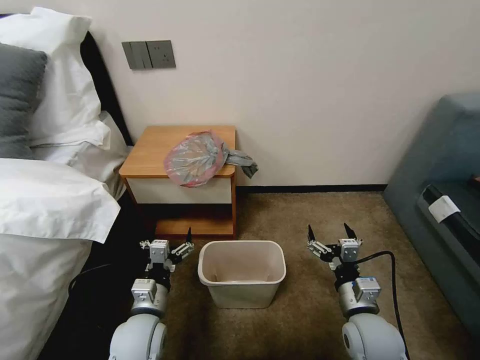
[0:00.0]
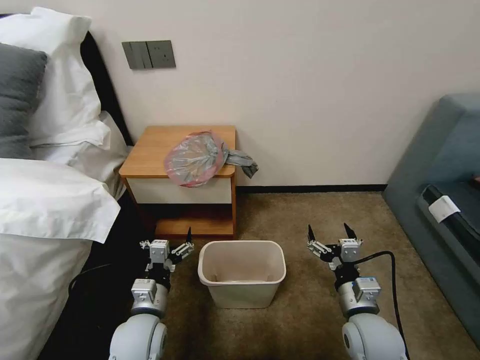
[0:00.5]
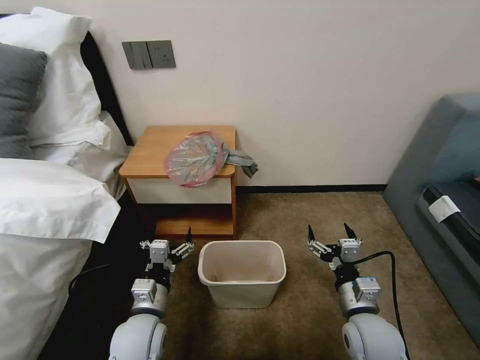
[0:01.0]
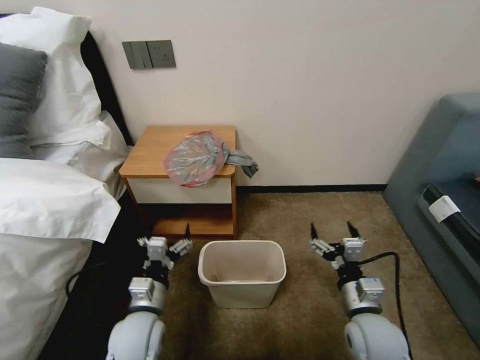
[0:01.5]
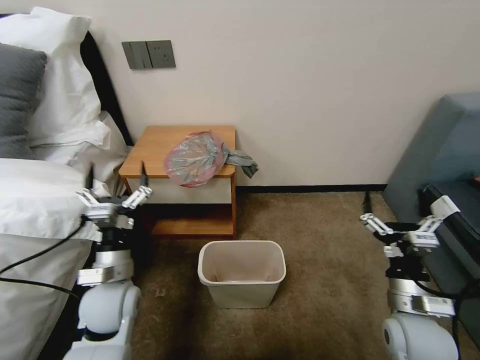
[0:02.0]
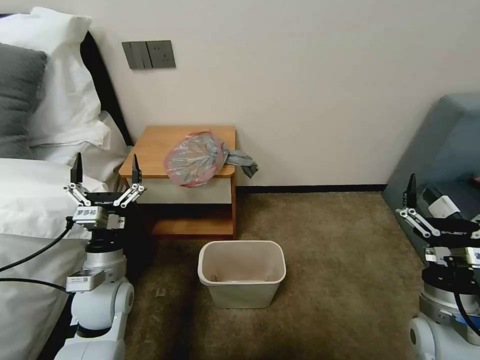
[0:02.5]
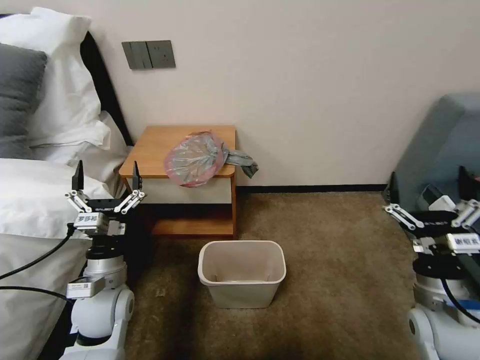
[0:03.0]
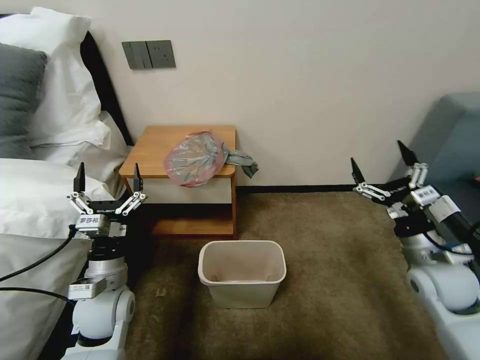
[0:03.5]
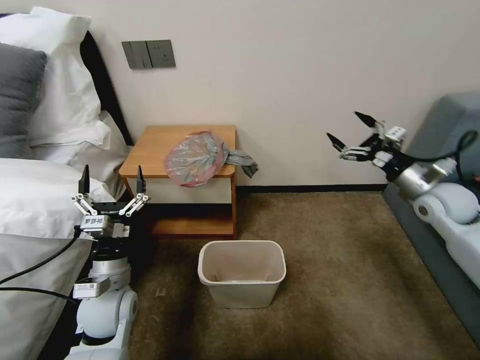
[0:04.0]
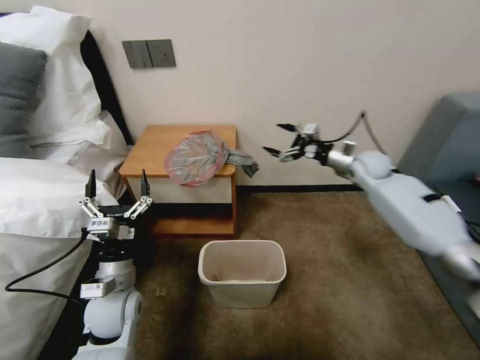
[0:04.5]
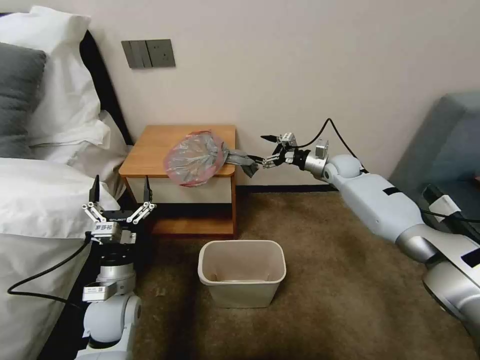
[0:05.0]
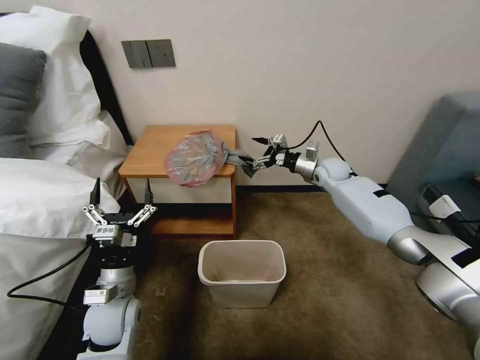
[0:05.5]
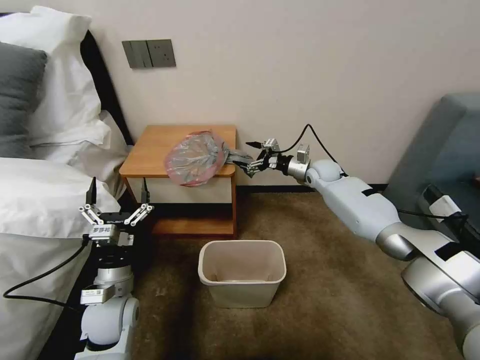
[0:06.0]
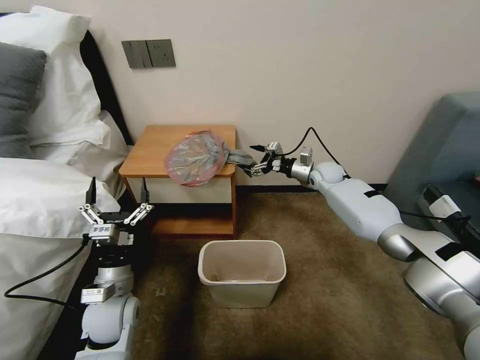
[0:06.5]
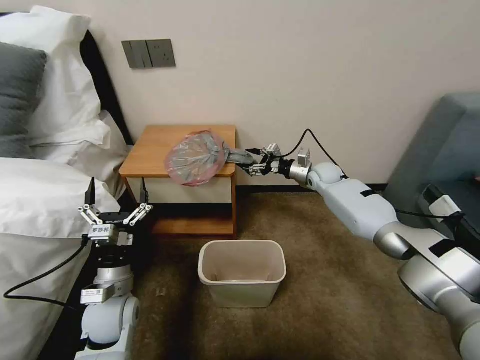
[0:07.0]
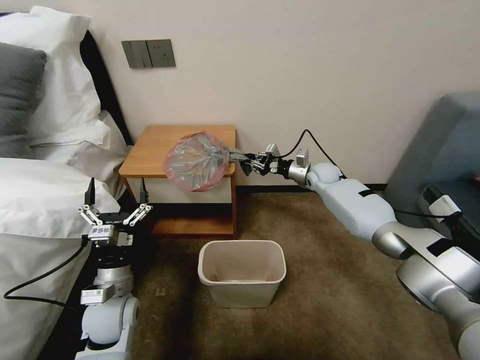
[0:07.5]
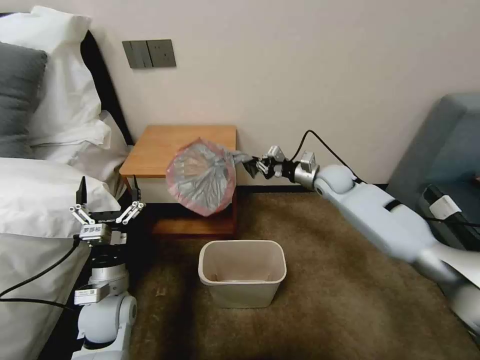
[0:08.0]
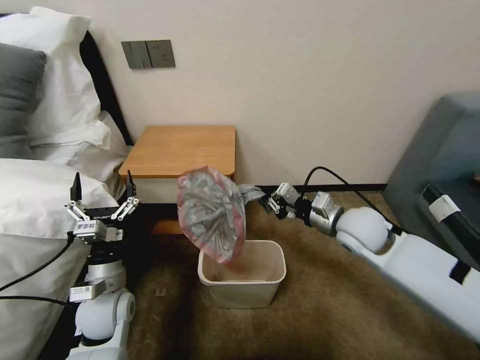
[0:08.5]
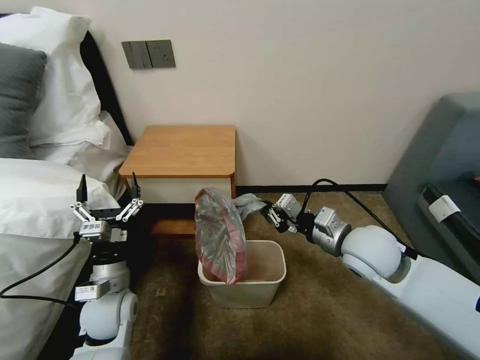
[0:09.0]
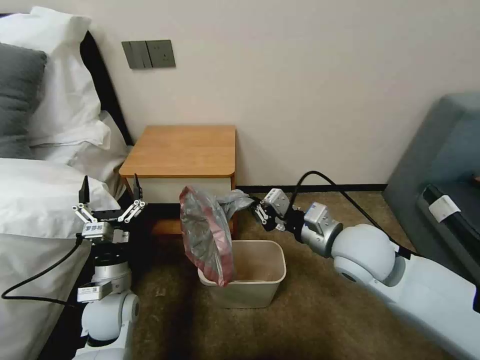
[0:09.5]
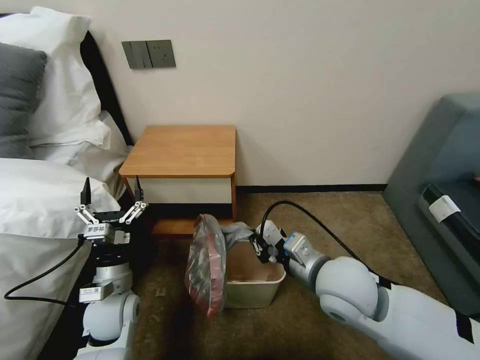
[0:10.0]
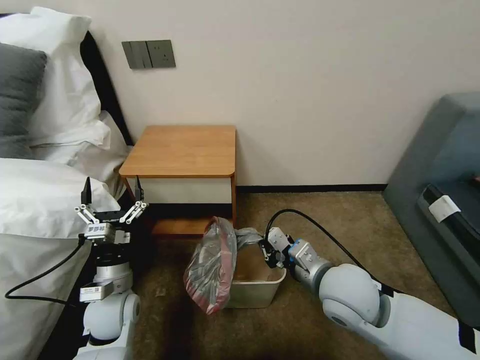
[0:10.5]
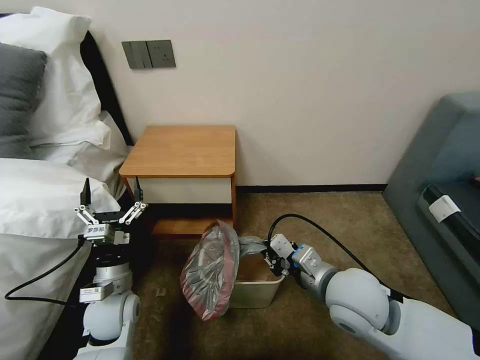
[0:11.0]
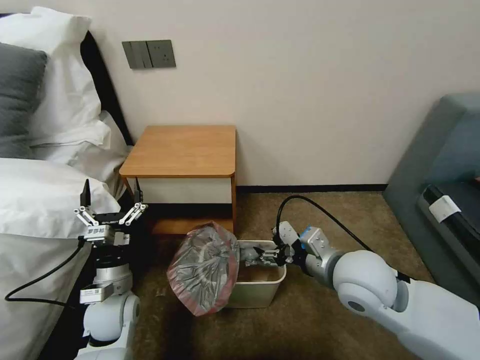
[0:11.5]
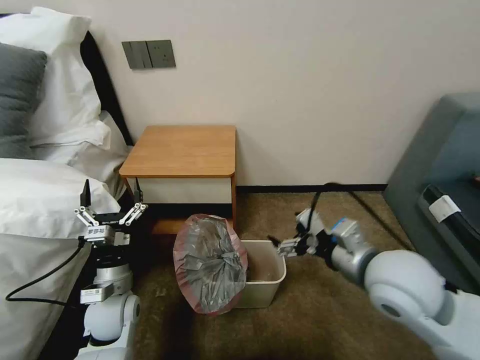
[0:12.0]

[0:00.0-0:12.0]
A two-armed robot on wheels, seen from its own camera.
Task of the whole recording: Pick up the garbage bag from the table and place it over the trash can.
0:02.0 to 0:04.0: The right gripper heads forward, to the right and upward, covering some 30 cm.
0:04.0 to 0:06.0: The right gripper travels forward, to the left and downward by approximately 30 cm.
0:06.0 to 0:08.0: The right gripper heads backward, covering some 5 cm, and closes its fingers.
0:08.0 to 0:10.0: The right gripper moves backward, some 30 cm.
0:10.0 to 0:12.0: The right gripper travels to the right and upward by about 10 cm, and opens.

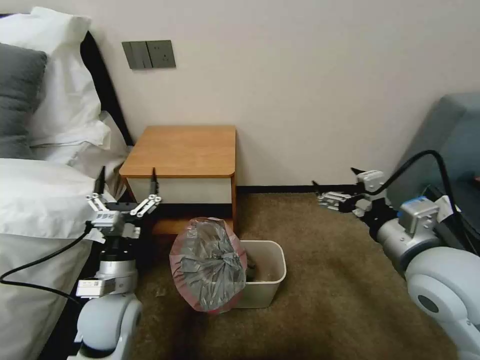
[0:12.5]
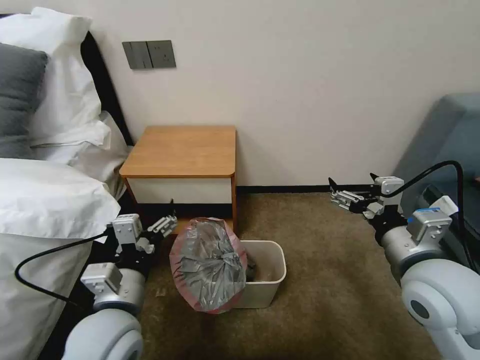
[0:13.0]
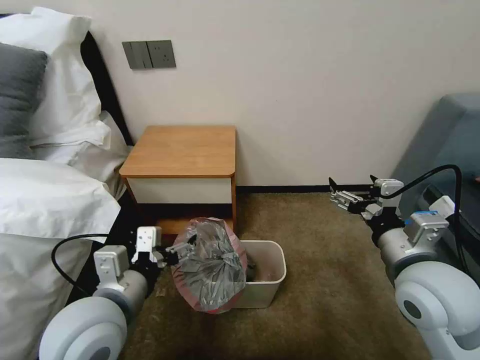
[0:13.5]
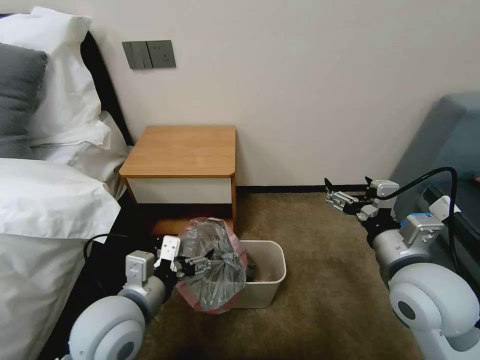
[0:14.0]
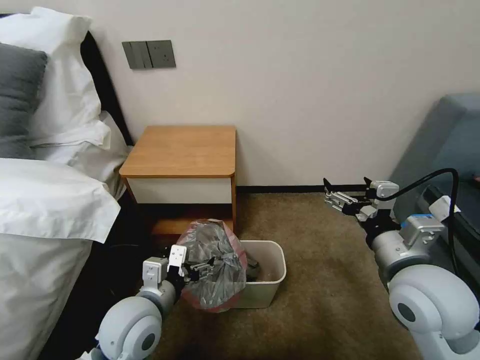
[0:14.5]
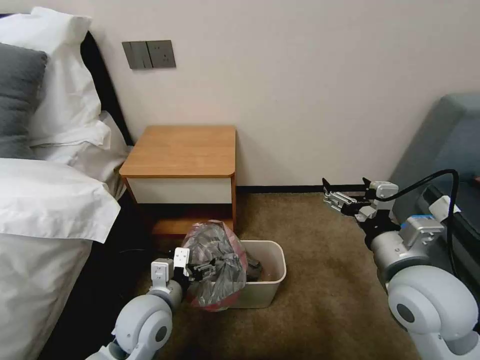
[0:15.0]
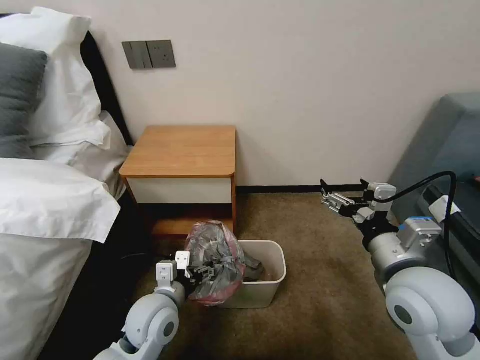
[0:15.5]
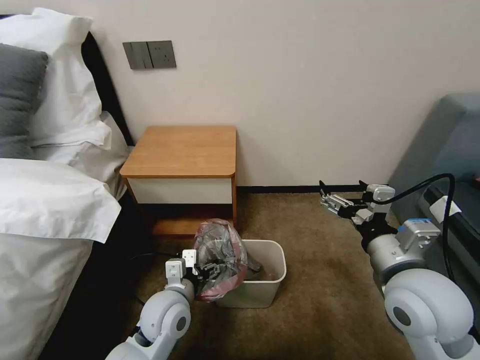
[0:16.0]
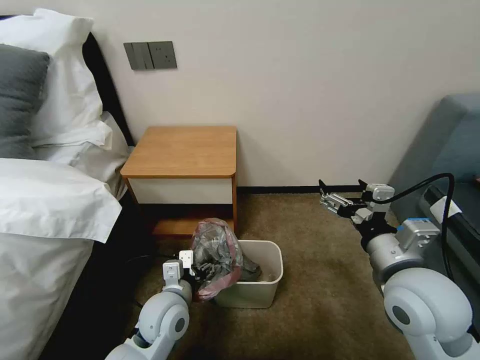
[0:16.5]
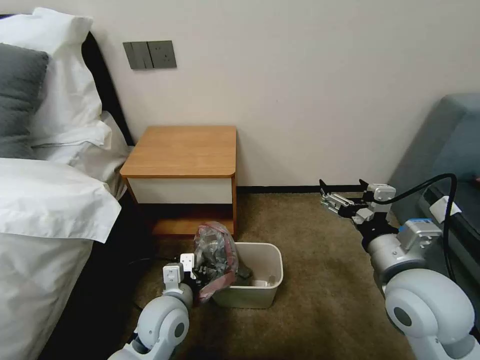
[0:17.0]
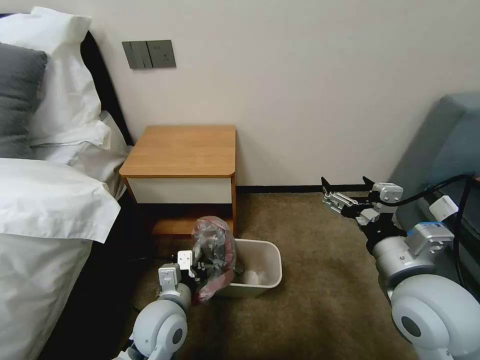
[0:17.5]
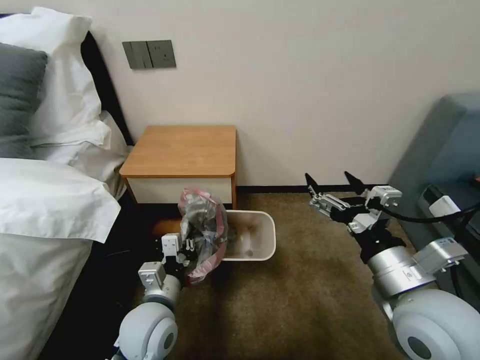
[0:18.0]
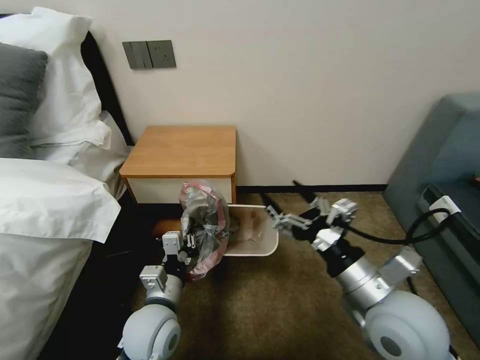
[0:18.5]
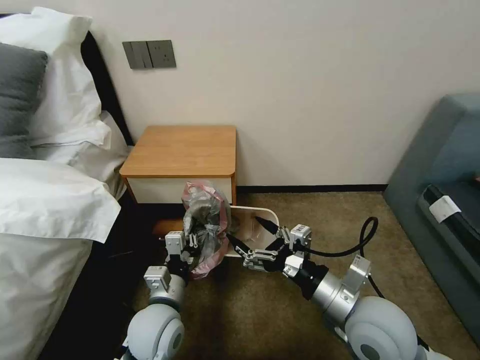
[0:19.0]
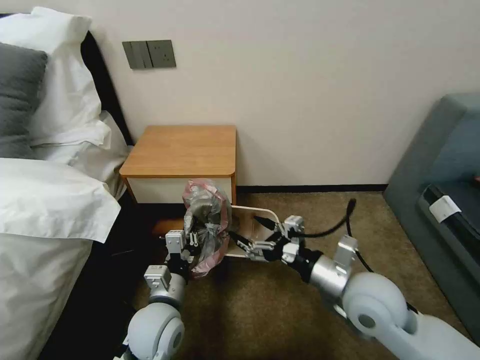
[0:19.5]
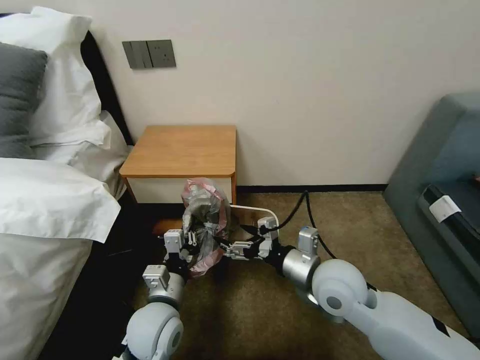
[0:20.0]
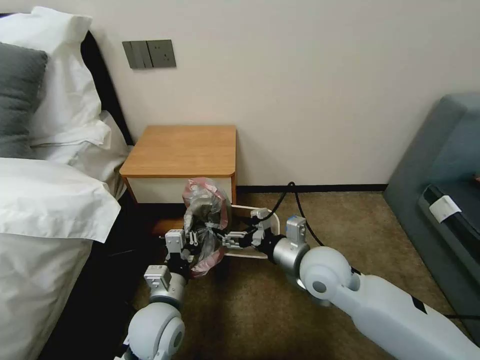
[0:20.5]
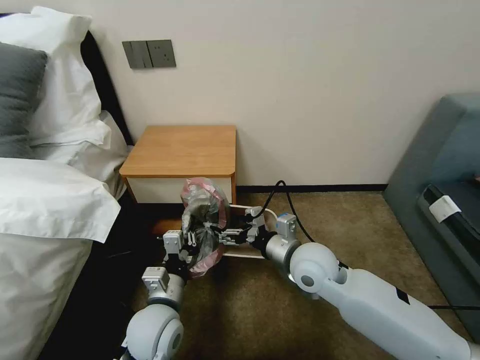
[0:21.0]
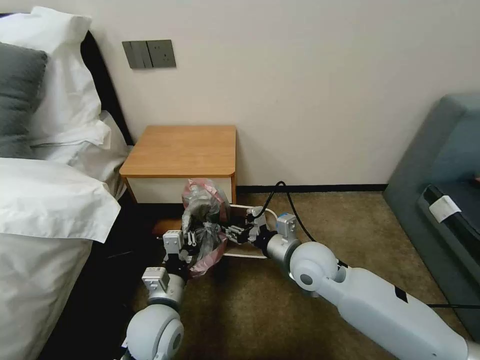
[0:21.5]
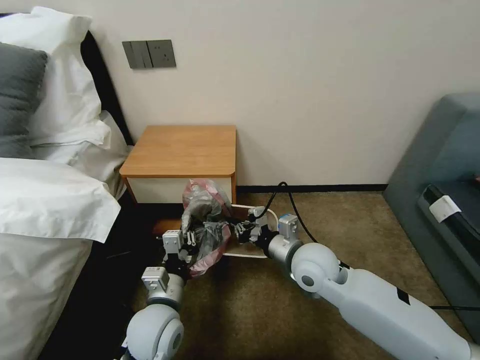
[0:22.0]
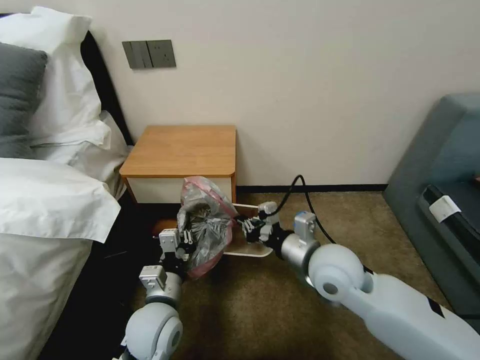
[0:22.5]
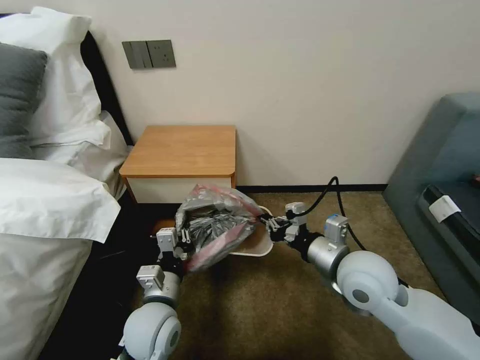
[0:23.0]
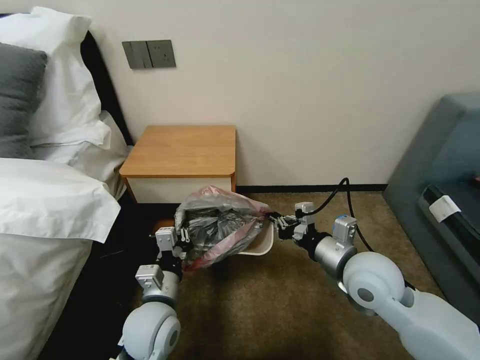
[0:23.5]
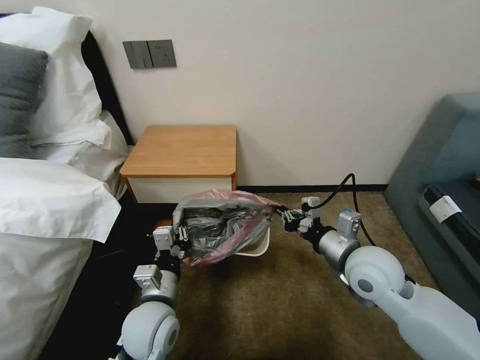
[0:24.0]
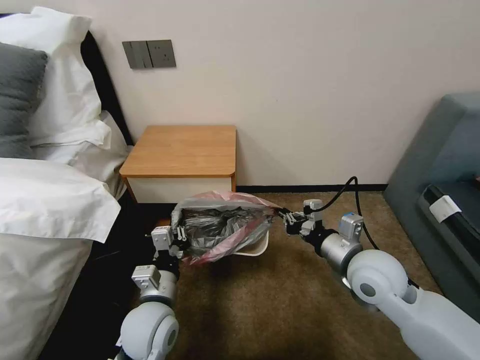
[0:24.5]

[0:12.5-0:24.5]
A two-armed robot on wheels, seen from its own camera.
Task of the whole recording: Pick up the garbage bag from the table and place it over the trash can.
0:12.5 to 0:14.5: The left gripper goes about 5 cm to the right, and goes upward and returns, some 10 cm each way.
0:14.5 to 0:16.5: The left gripper is displaced downward by some 10 cm.
0:16.5 to 0:18.5: The left gripper closes up.
0:18.5 to 0:20.5: The right gripper goes approximately 15 cm forward, to the left and downward.
0:20.5 to 0:22.5: The right gripper closes.
0:22.5 to 0:24.5: The right gripper heads to the right, covering some 10 cm.

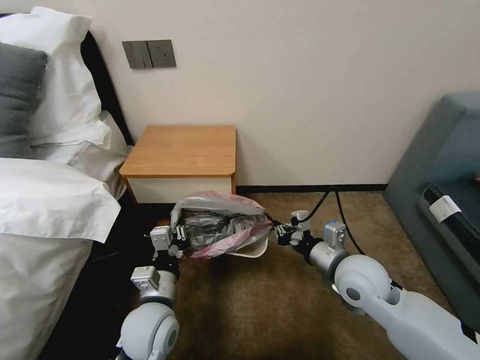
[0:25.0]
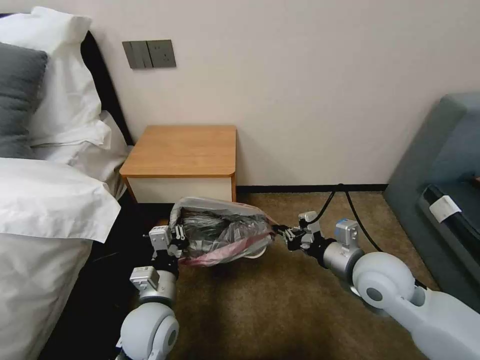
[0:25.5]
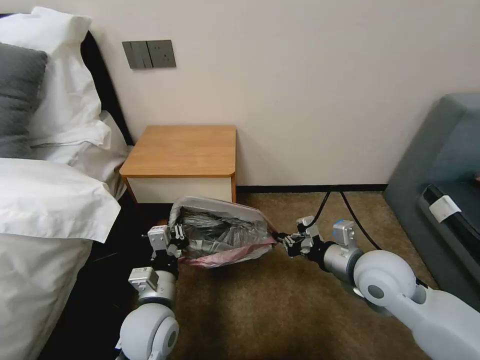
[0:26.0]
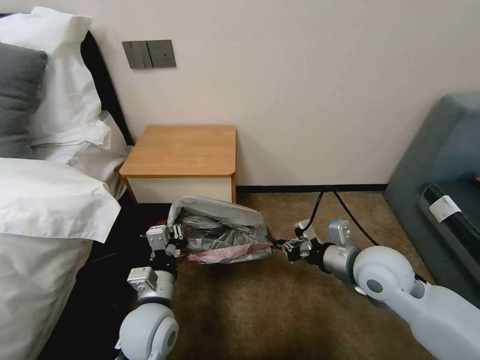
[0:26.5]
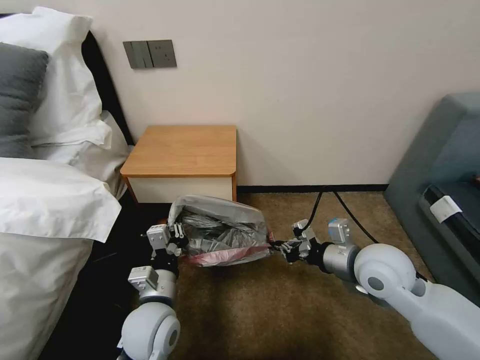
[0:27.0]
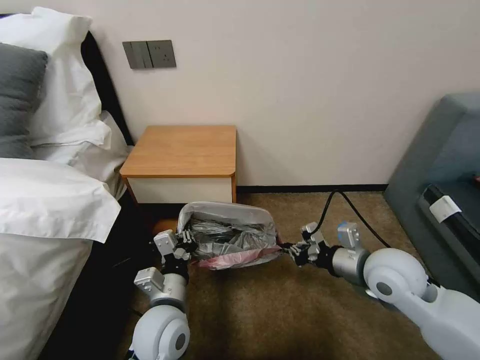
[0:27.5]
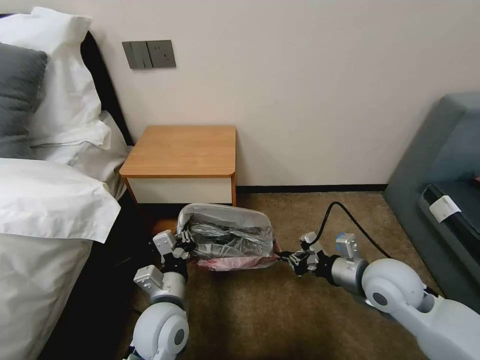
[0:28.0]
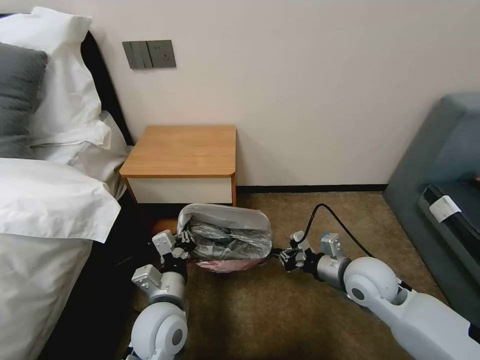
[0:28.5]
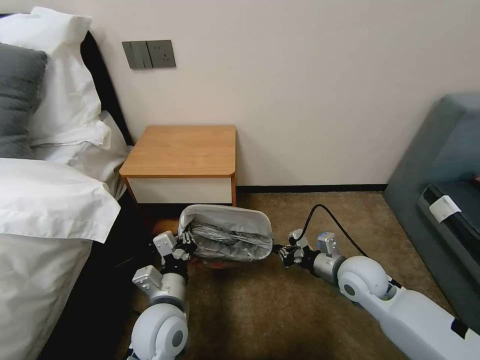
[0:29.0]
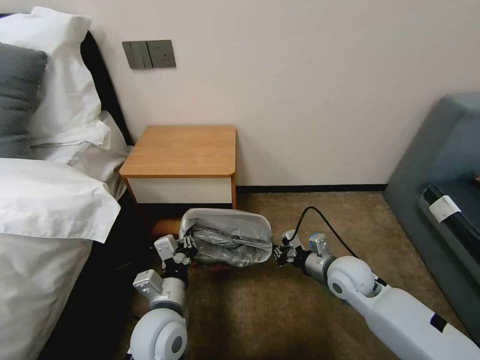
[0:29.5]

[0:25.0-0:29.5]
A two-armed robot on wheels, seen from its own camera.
Task of the whole recording: Pick up the garbage bag from the table and place it over the trash can.
0:25.0 to 0:27.0: The grippers make only small movements.
0:27.0 to 0:29.5: The right gripper goes some 10 cm downward.